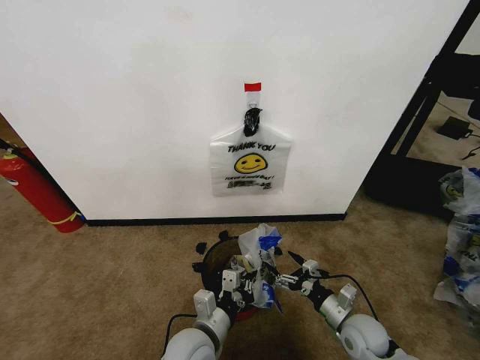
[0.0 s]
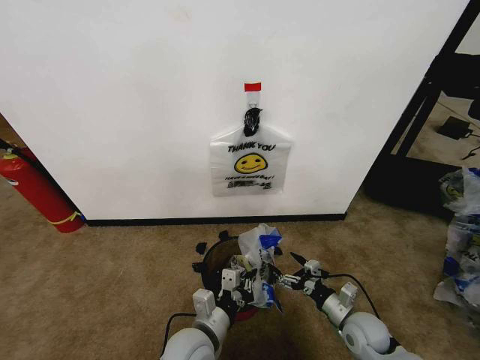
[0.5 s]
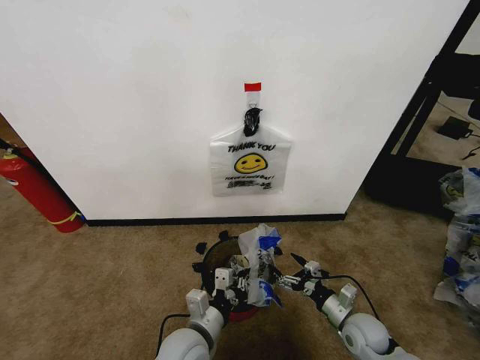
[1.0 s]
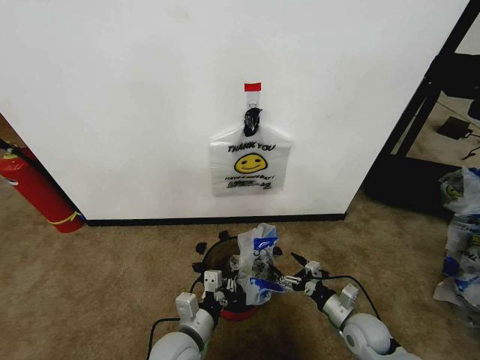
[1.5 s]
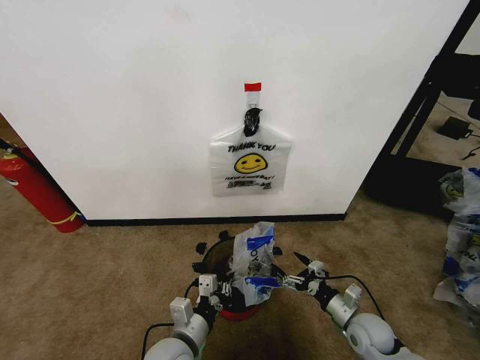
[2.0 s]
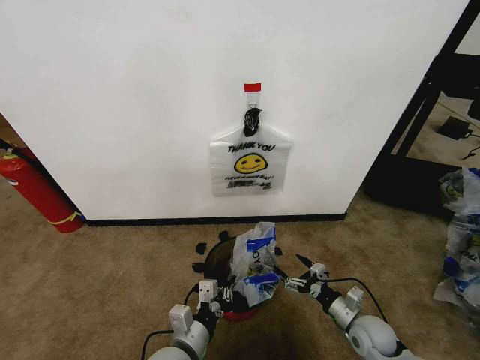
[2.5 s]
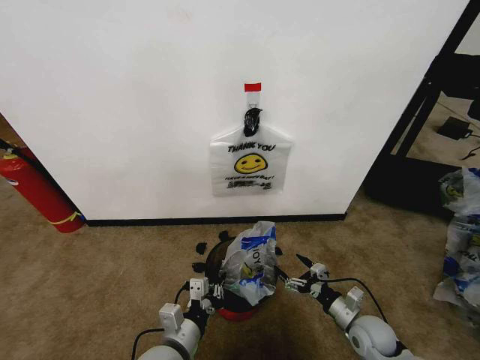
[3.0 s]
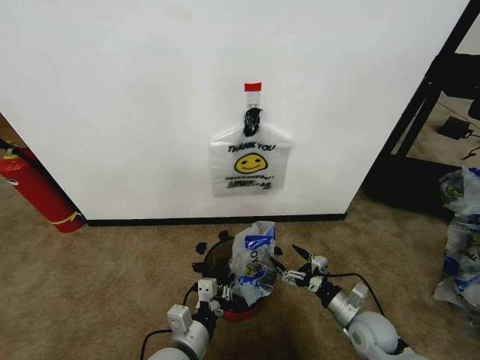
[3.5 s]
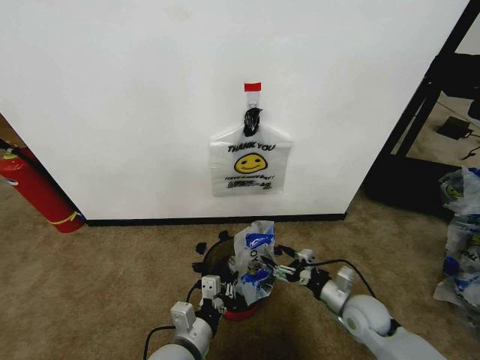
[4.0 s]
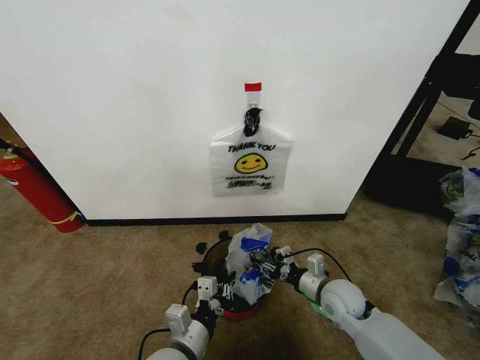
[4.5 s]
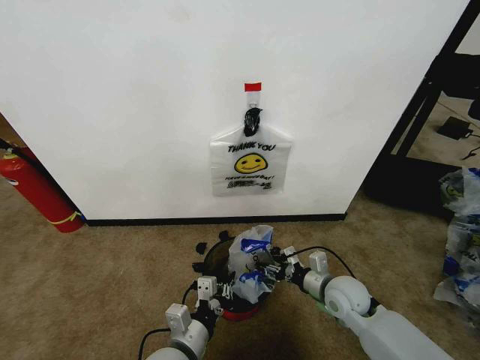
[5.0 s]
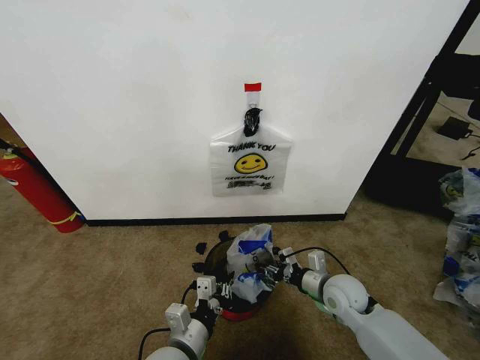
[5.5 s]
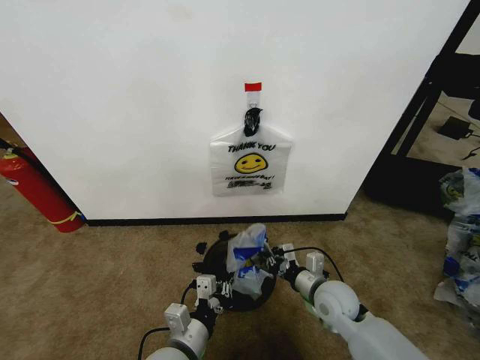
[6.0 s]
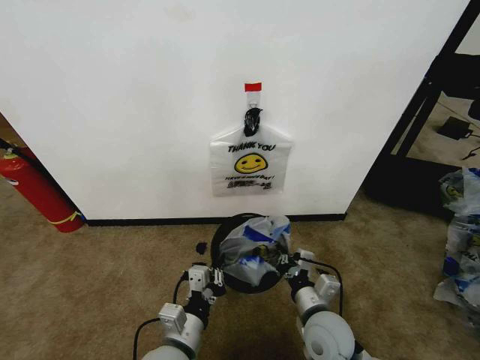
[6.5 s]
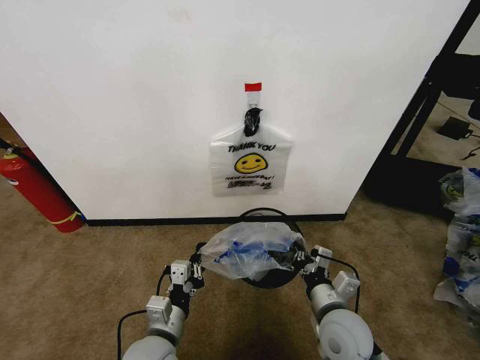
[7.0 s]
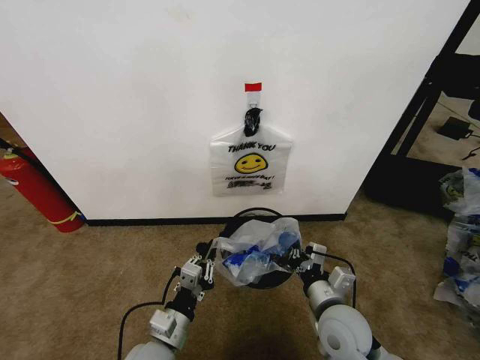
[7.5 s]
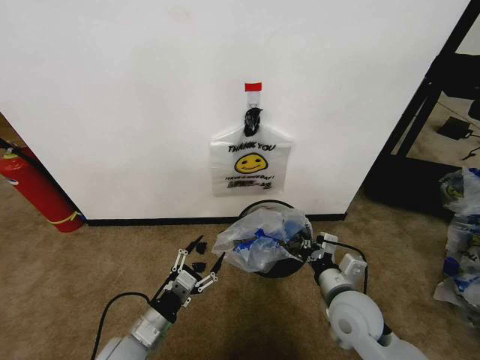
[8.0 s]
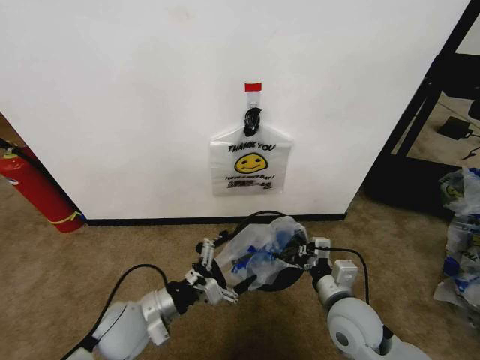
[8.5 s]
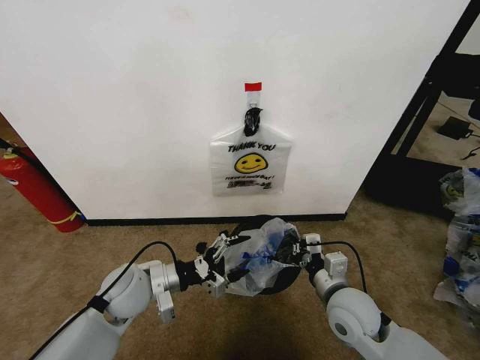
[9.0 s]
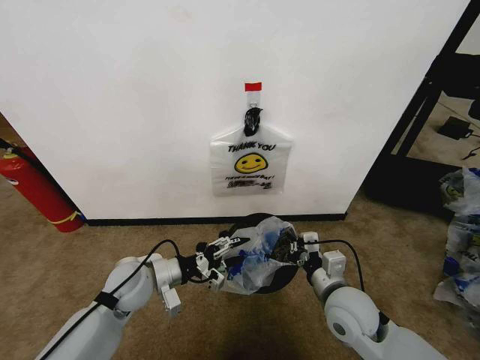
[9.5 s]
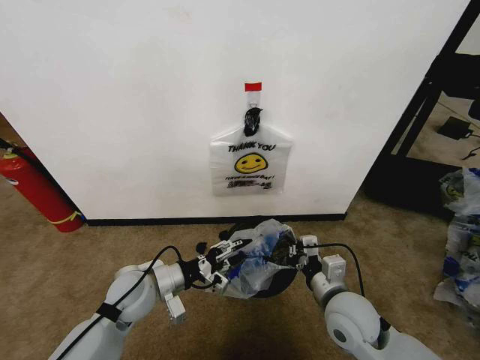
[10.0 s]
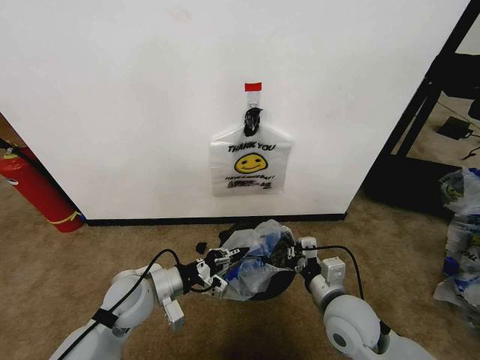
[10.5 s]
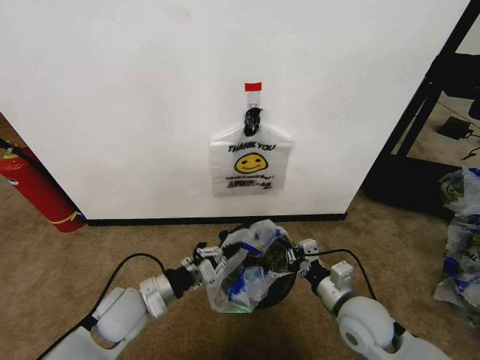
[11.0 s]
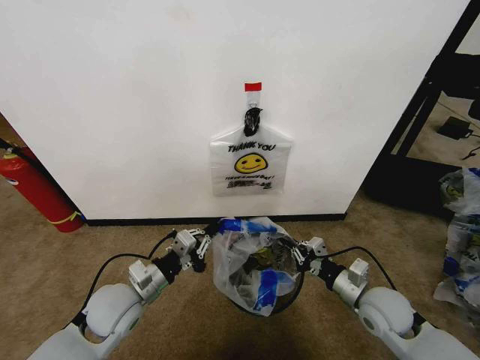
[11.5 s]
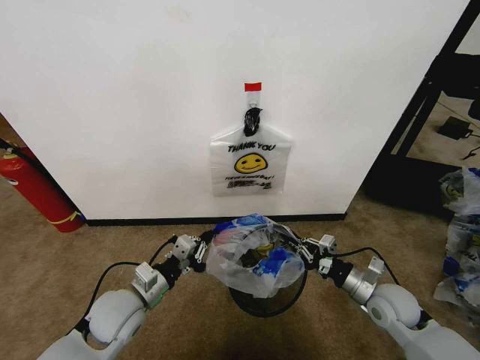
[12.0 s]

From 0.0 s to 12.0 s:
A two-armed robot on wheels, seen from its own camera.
Task of the whole recording: Pick up the garbage bag from the wall and place it over the trash bin.
From 0.0 s to 2.0 s: There are only small adjustments of the grippers.
From 2.0 s to 4.0 s: The right gripper ends up some 5 cm from where it was.
From 4.0 s to 6.0 s: The right gripper is displaced to the left by approximately 10 cm, and closes its fingers.
From 6.0 s to 8.0 s: The left gripper is displaced to the left by approximately 10 cm, and opens its fingers, while the right gripper travels upward and backward by about 10 cm.
From 8.0 s to 10.0 s: The left gripper goes approximately 15 cm forward and upward.
From 10.0 s to 12.0 s: The left gripper closes; the right gripper travels to the right by about 10 cm.

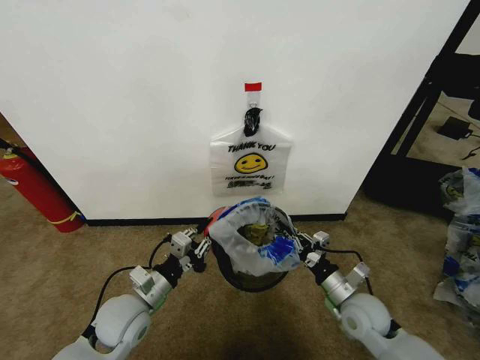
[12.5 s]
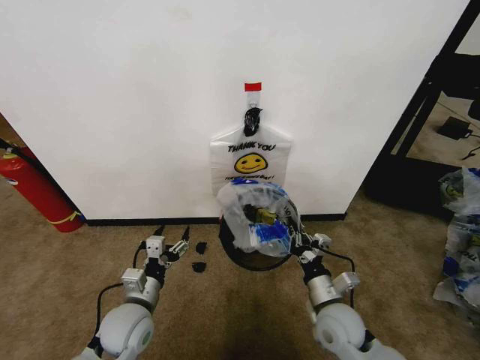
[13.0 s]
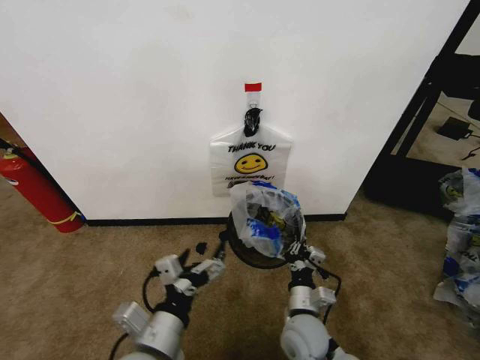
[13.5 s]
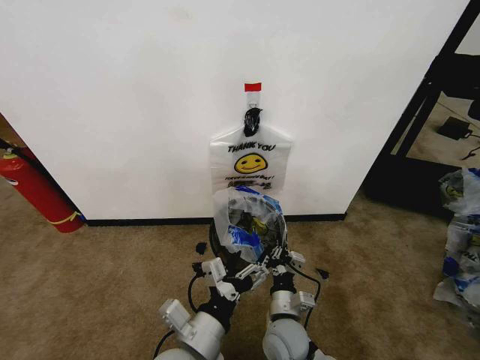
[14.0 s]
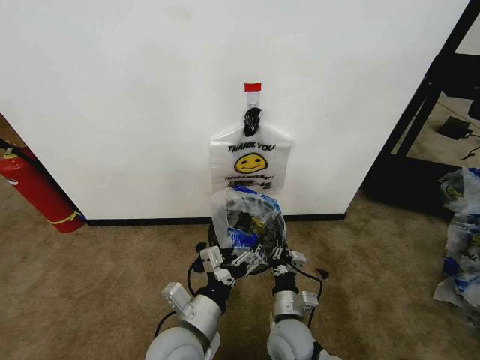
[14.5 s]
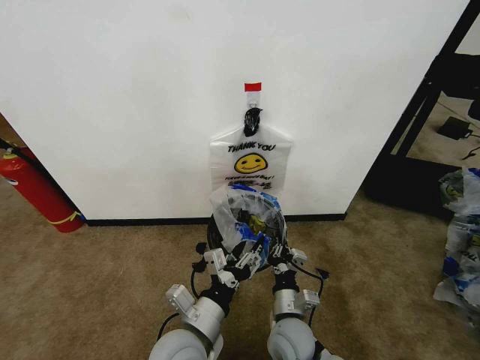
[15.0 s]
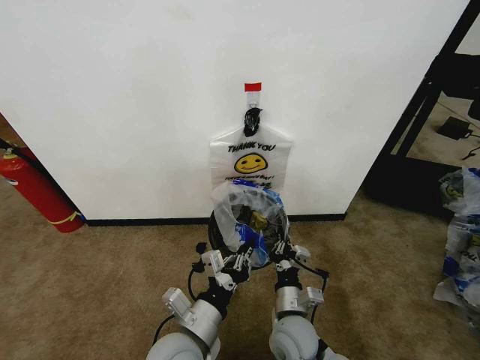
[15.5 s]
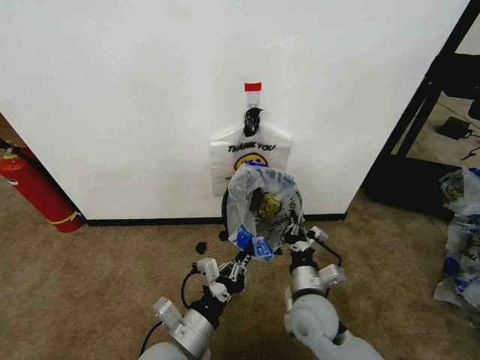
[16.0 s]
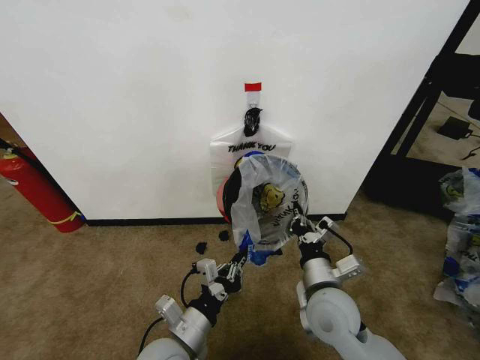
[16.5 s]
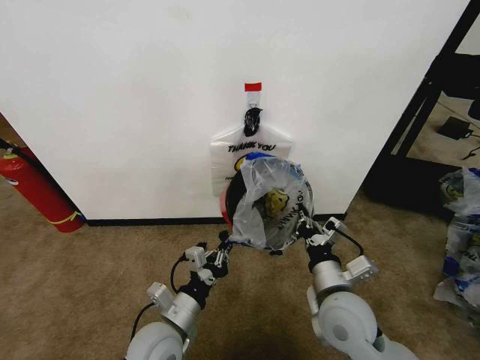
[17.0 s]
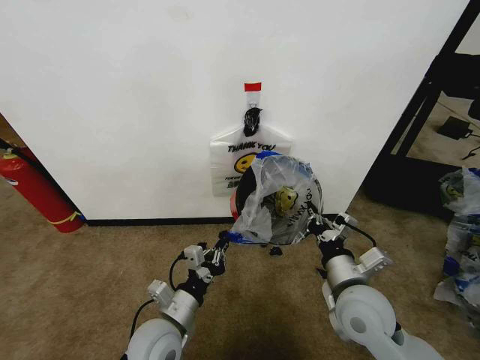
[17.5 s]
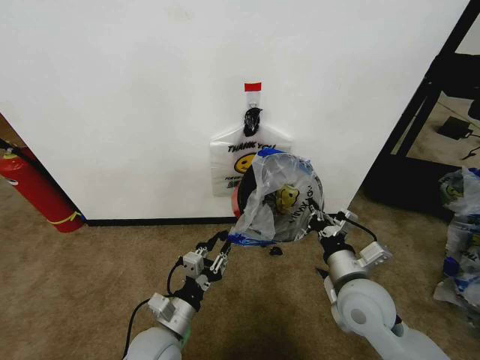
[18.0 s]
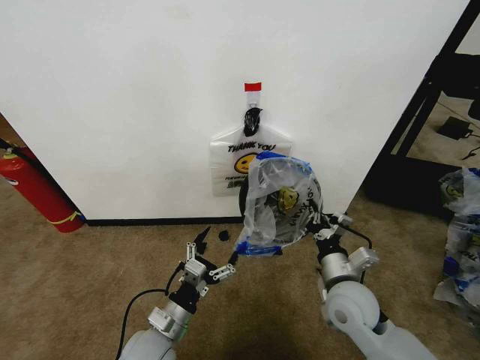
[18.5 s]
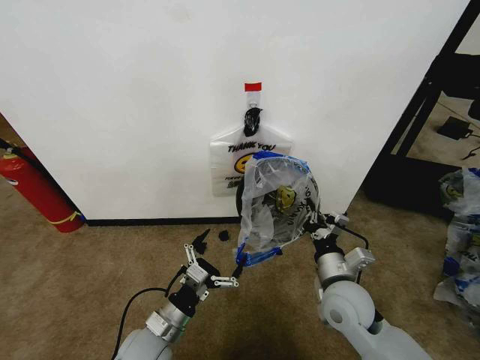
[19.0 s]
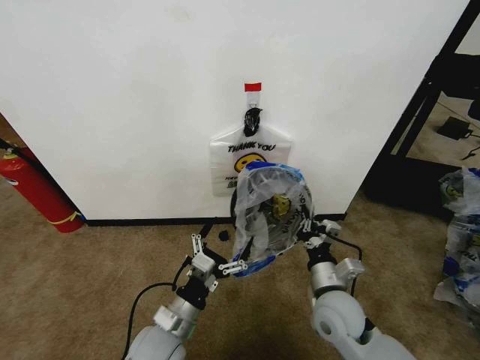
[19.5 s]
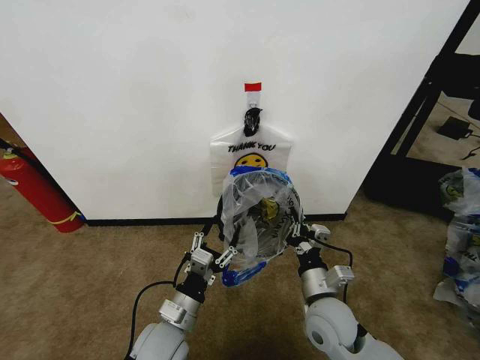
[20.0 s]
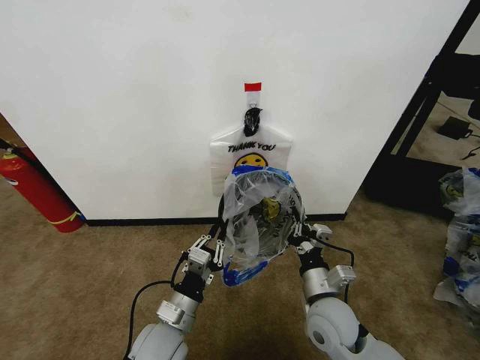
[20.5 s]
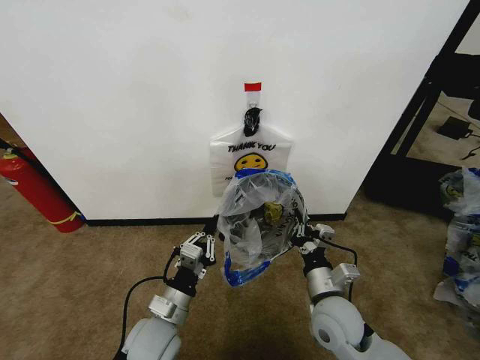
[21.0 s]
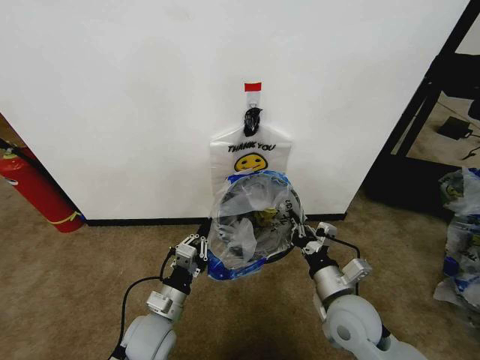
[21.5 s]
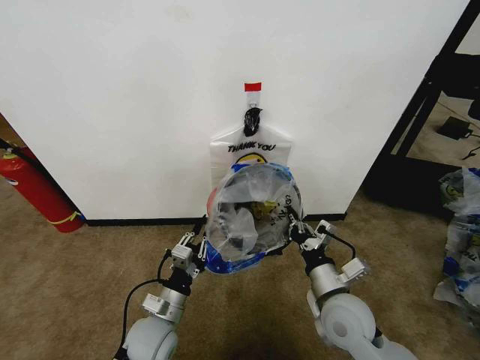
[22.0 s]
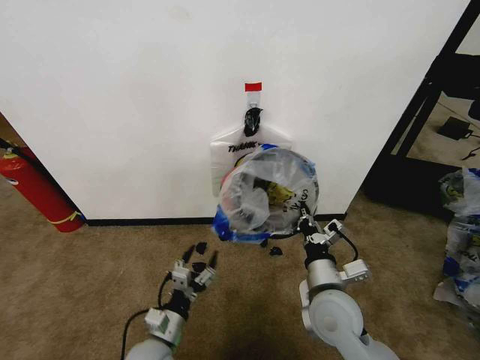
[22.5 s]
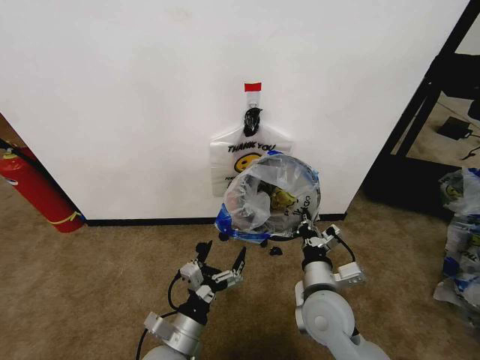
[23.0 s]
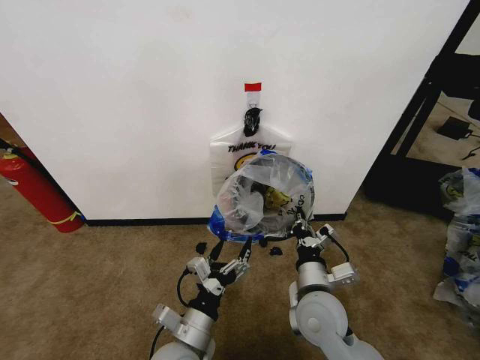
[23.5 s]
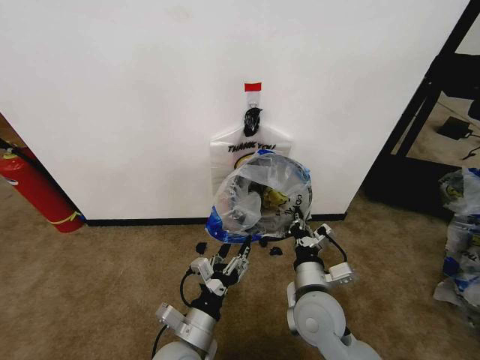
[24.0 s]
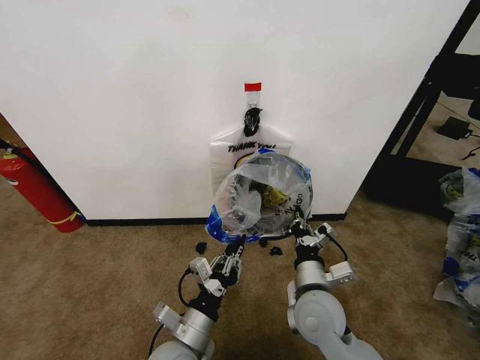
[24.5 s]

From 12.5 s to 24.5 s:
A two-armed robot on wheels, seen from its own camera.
Task of the whole recording: Pick up the garbage bag from the wall and place it over the trash bin.
From 12.5 s to 14.5 s: The left gripper moves to the right and backward, about 15 cm, and opens its fingers. Meanwhile the right gripper travels to the left by roughly 15 cm.
From 14.5 s to 16.5 s: The left gripper closes. The right gripper travels upward and to the right by some 15 cm.
From 16.5 s to 18.5 s: The left gripper changes place by roughly 5 cm, and opens its fingers. The right gripper moves roughly 5 cm.
From 18.5 s to 20.5 s: The left gripper closes its fingers; the right gripper moves roughly 5 cm.
From 20.5 s to 22.5 s: The left gripper moves downward, approximately 10 cm, and opens its fingers.
From 22.5 s to 24.5 s: The left gripper is displaced upward and to the right by some 10 cm, and closes up.

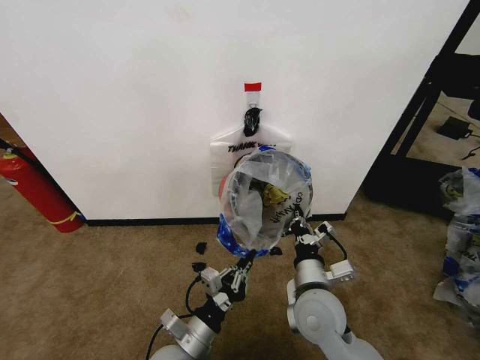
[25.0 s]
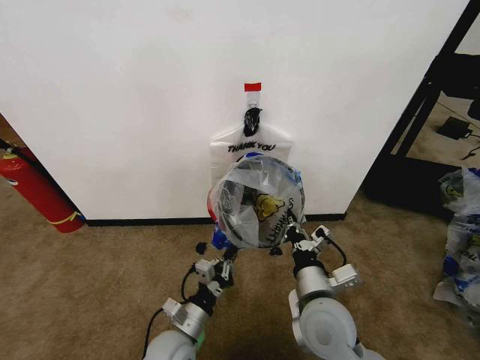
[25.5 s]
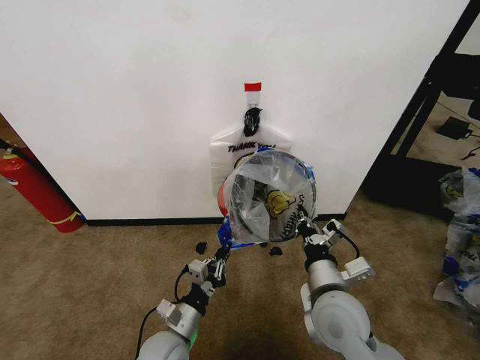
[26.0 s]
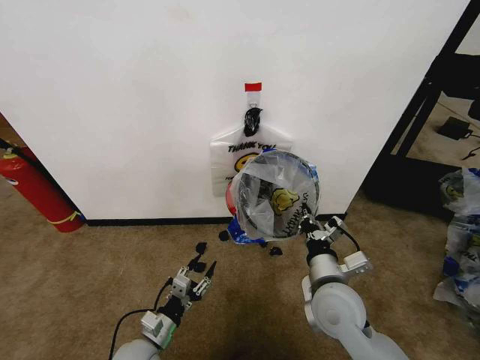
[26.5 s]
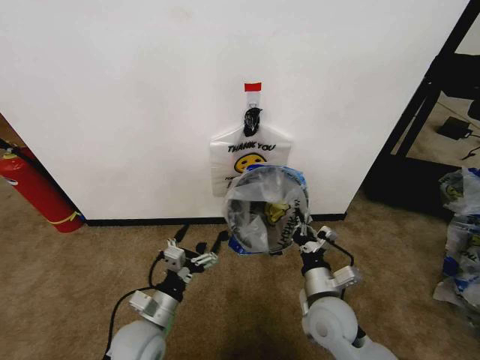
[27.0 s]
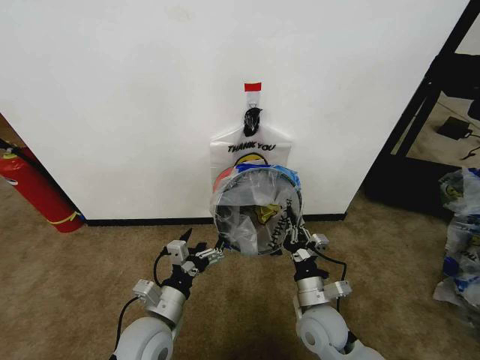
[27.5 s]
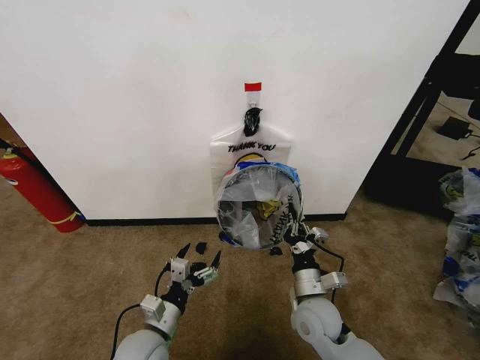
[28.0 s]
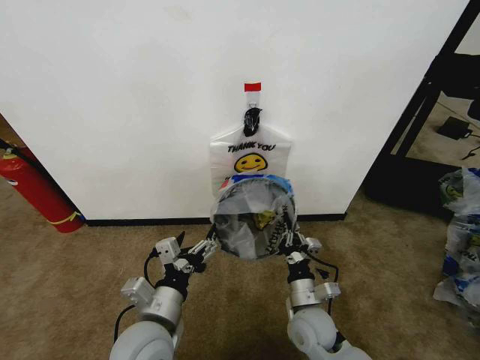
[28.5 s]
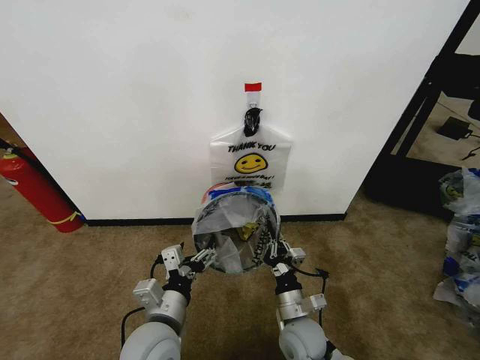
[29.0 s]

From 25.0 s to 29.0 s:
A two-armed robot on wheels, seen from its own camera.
Task of the whole recording: Pick up the garbage bag from the wall and place it over the trash bin.
From 25.0 s to 27.0 s: The right gripper ends up roughly 5 cm from where it was, while the left gripper shifts about 5 cm to the left, and opens.
From 27.0 s to 29.0 s: The left gripper shifts some 10 cm upward and to the right; the right gripper travels downward by roughly 10 cm.
